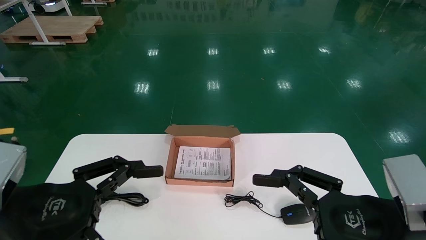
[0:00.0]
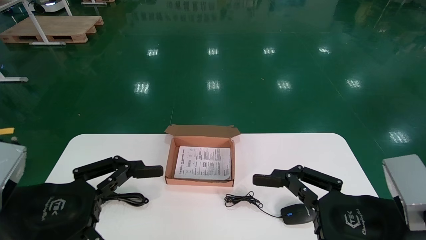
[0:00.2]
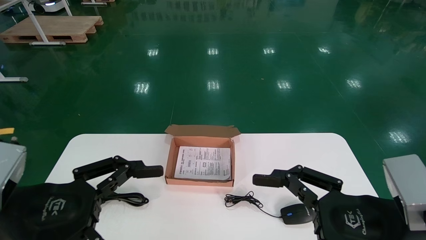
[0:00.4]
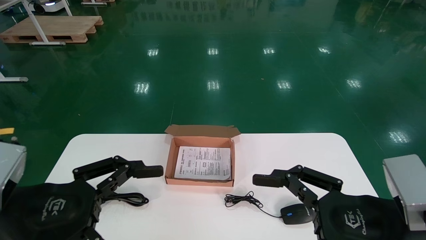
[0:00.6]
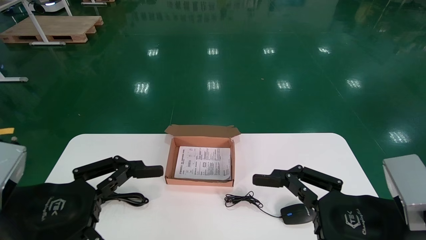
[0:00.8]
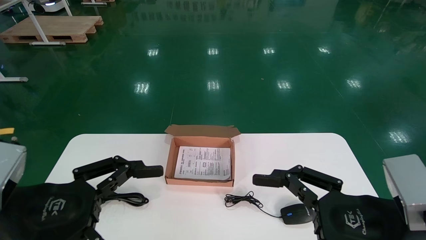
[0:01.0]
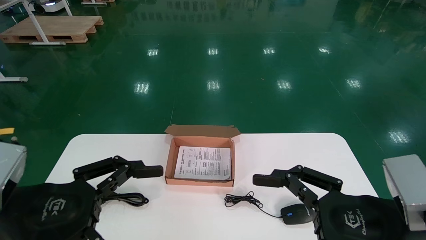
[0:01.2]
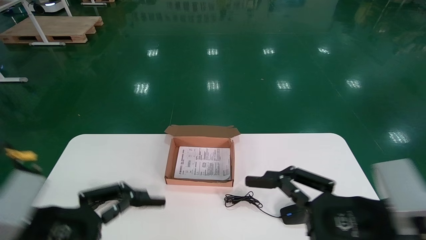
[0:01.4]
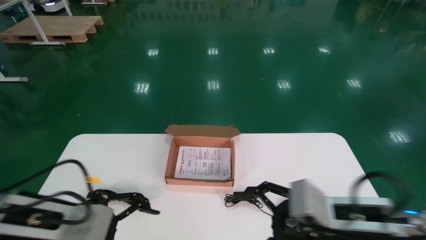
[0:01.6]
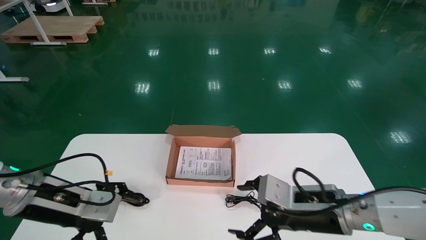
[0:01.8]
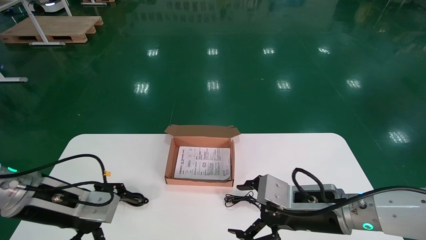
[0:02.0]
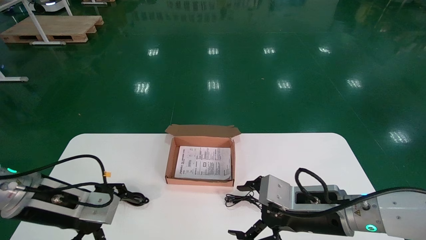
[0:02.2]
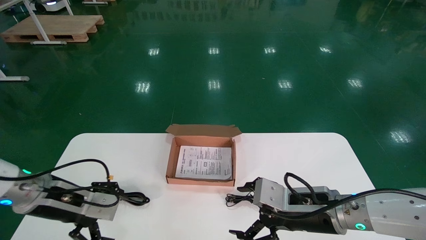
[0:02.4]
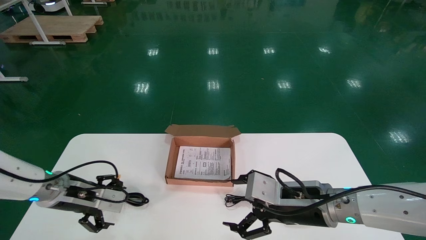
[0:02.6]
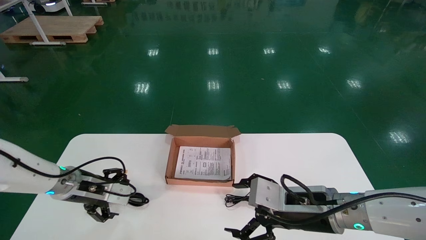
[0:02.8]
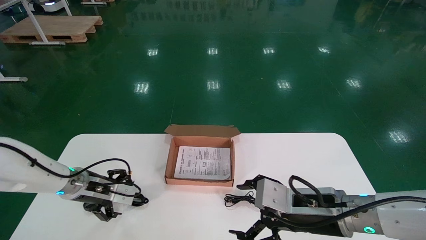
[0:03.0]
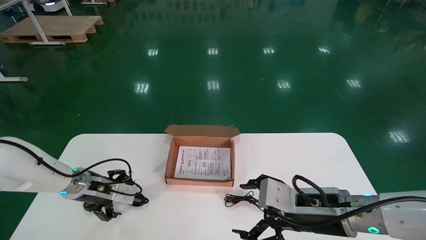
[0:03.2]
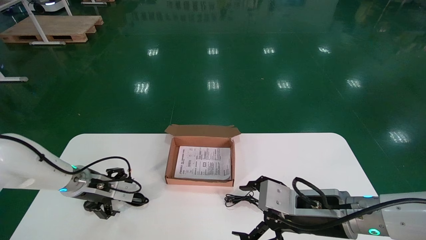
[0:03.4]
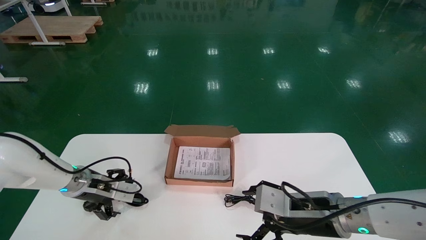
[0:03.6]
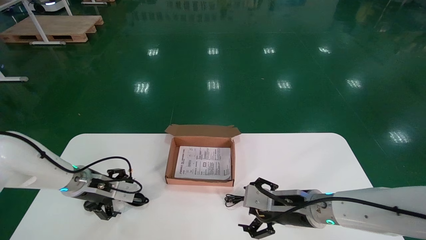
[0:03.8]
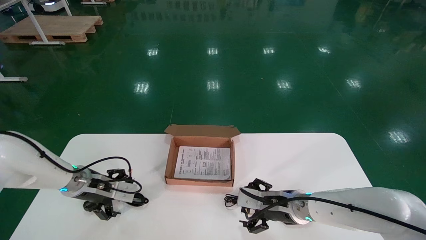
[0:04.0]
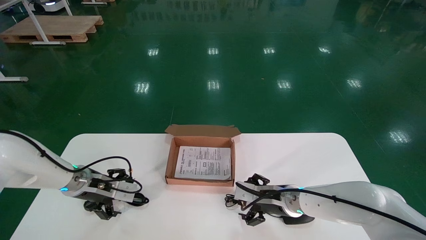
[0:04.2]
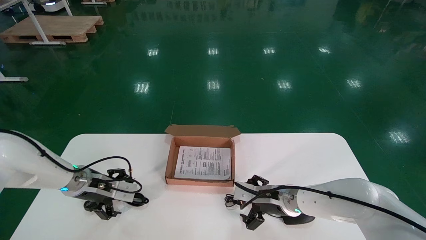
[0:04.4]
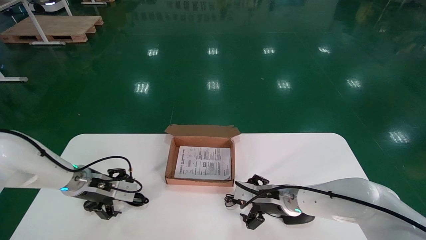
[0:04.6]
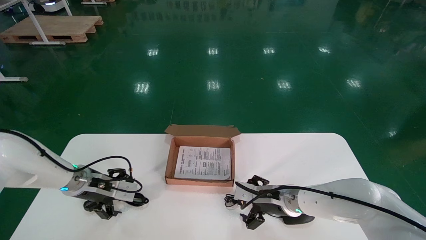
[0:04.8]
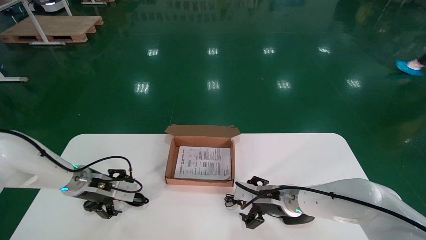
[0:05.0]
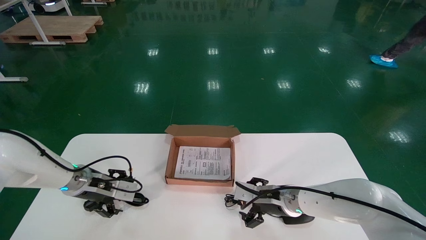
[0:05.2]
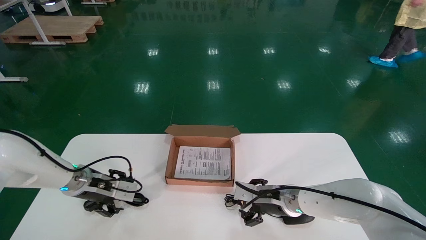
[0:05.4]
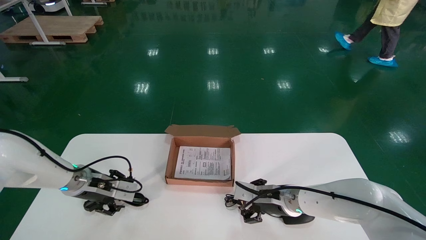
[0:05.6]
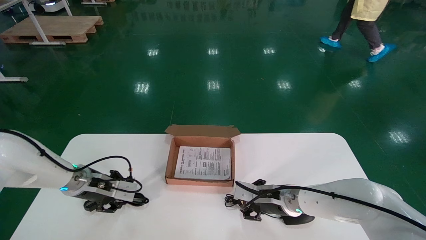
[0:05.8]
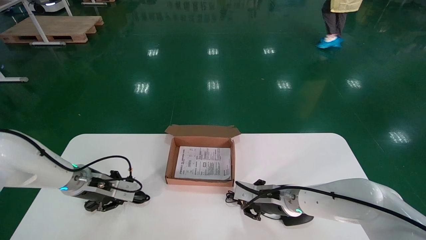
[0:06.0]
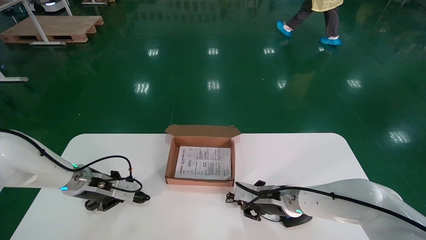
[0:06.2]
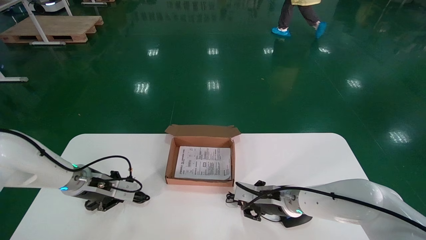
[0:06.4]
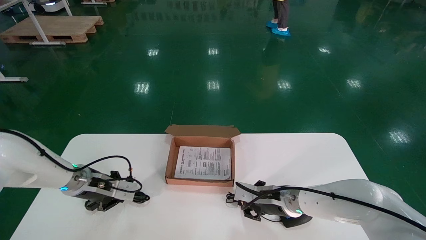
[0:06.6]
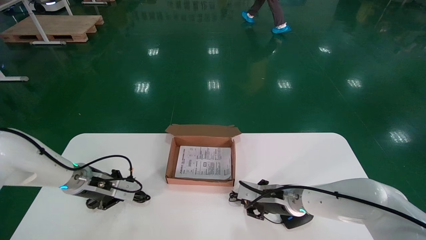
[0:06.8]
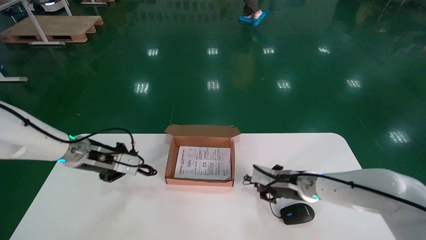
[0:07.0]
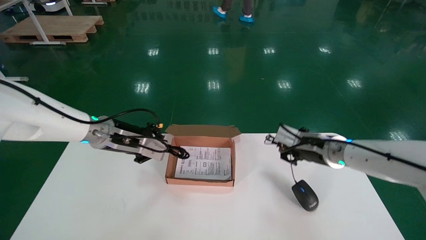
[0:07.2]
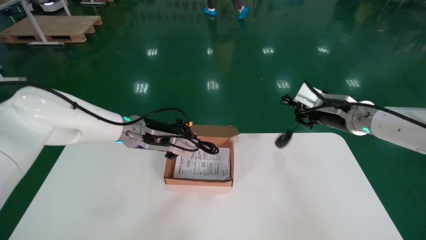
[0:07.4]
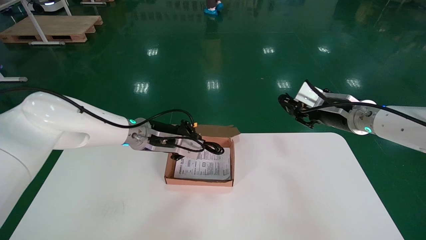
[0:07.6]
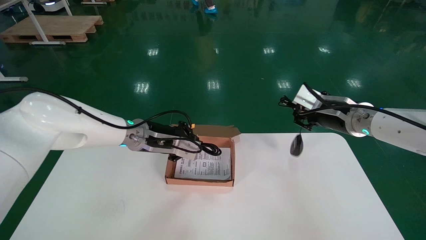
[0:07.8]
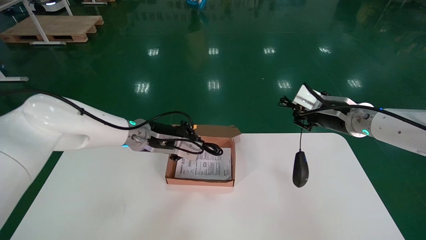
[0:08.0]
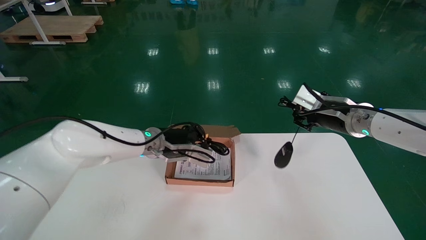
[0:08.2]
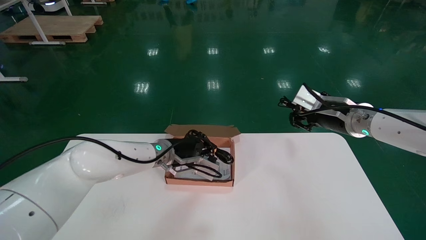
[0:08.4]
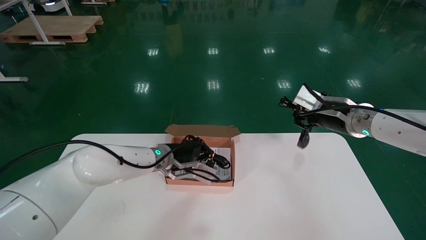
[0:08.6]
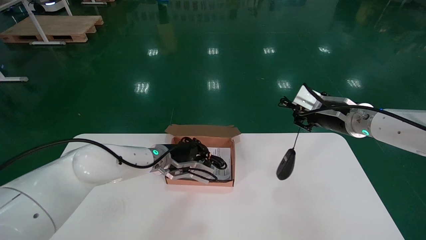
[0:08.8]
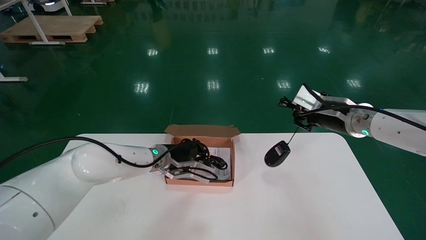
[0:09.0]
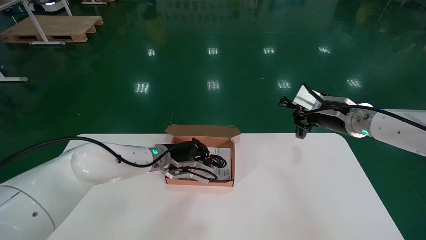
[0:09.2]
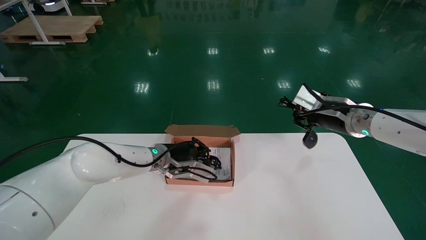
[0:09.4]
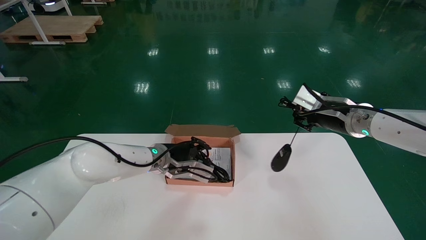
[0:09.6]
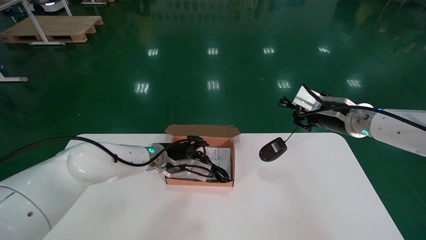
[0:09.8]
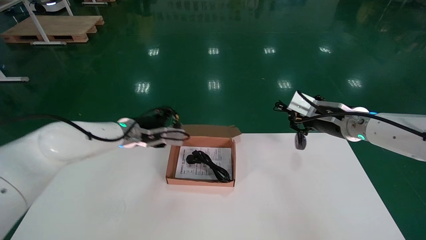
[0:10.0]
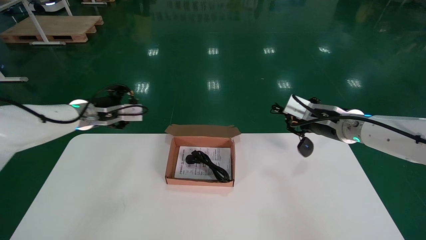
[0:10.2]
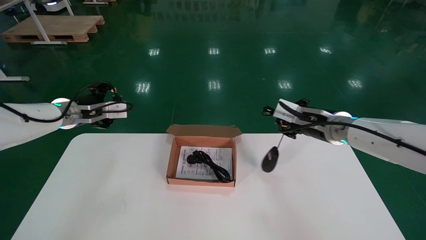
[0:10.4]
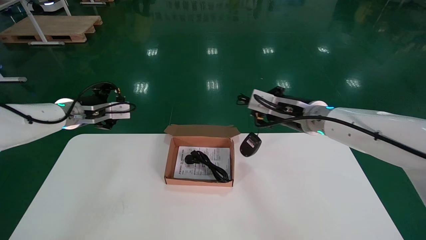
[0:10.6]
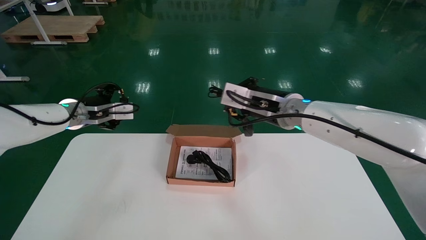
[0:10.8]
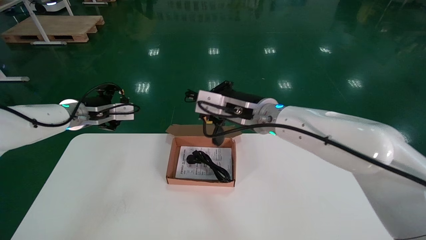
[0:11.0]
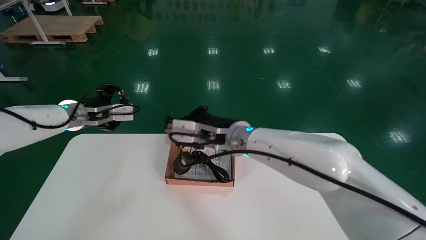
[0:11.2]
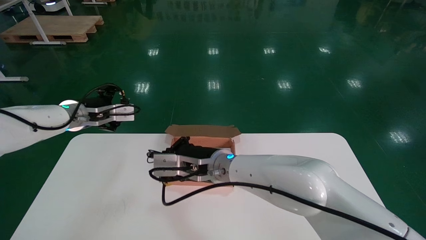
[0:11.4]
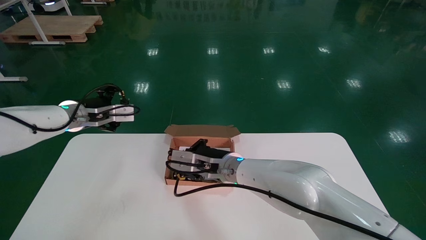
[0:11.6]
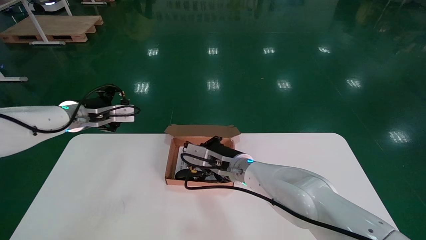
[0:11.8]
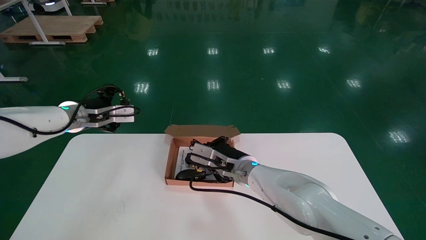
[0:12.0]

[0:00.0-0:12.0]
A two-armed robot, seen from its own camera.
Step, 0:01.8 to 0:06.0: Simultaneously pick up the mouse and power cord from the accessory packaging area.
0:00.0 to 0:01.6: Both grippers move forward, approximately 10 cm.
0:01.6 to 0:03.0: The left gripper heads forward, covering approximately 15 cm.
0:03.0 to 0:04.4: The right gripper moves forward and downward, some 15 cm.
0:04.4 to 0:06.0: The left gripper closes up, while the right gripper closes up.
0:06.0 to 0:07.6: The left gripper goes roughly 20 cm to the right and upward. Meanwhile the right gripper travels upward and to the right by roughly 25 cm.
0:07.6 to 0:09.0: The left gripper shifts roughly 5 cm downward.
0:09.0 to 0:10.4: The right gripper heads to the left, covering some 5 cm. The left gripper is displaced to the left and upward by approximately 20 cm, and opens its fingers.
0:10.4 to 0:12.0: The right gripper shifts some 20 cm to the left and downward.

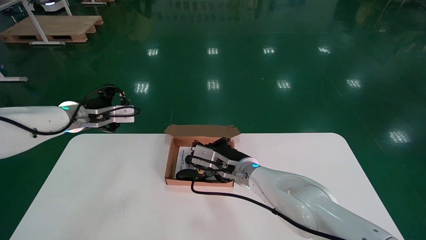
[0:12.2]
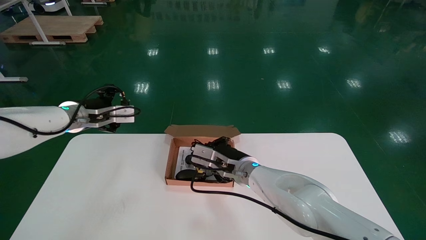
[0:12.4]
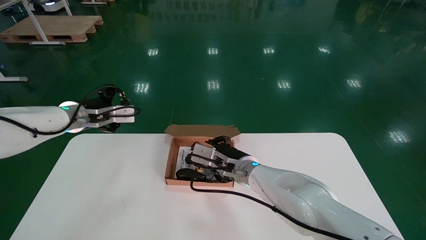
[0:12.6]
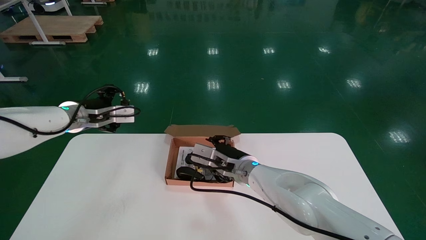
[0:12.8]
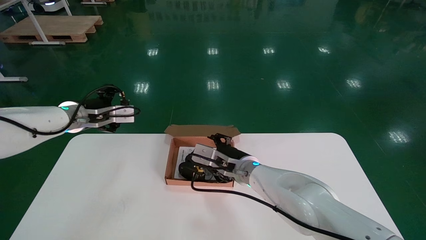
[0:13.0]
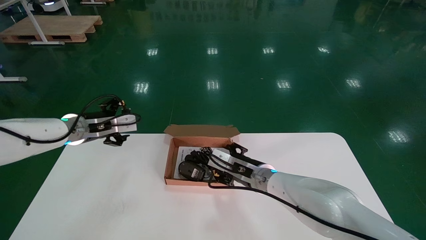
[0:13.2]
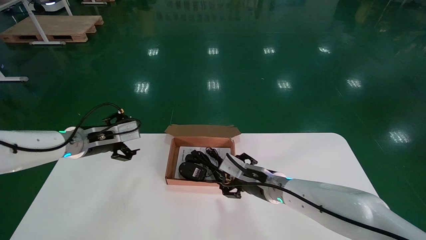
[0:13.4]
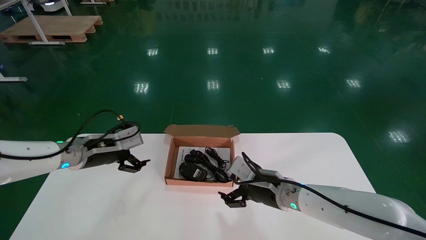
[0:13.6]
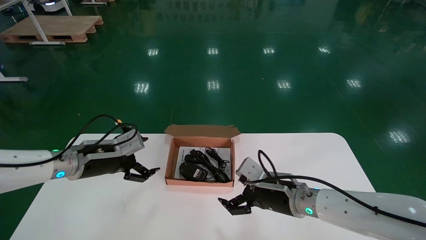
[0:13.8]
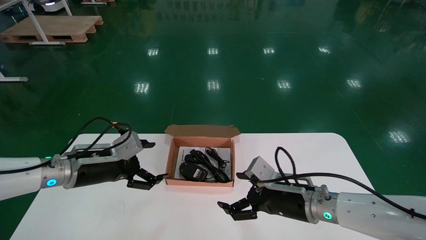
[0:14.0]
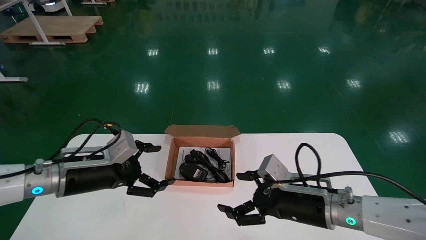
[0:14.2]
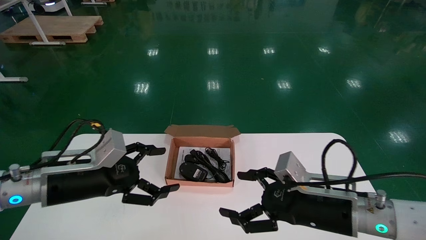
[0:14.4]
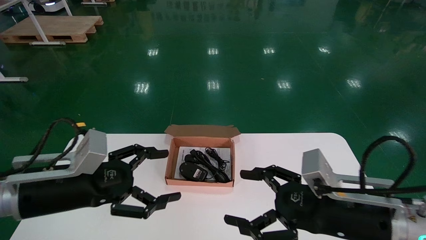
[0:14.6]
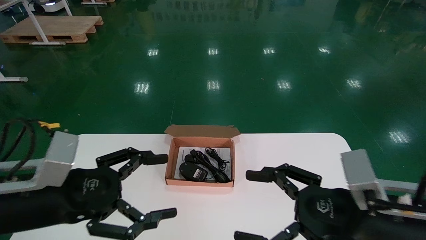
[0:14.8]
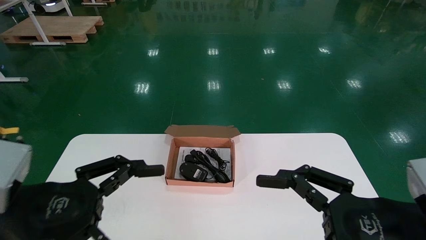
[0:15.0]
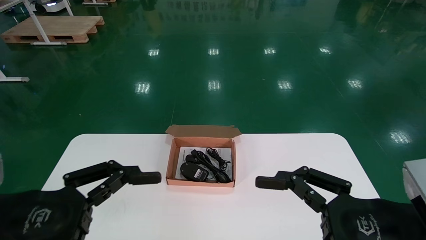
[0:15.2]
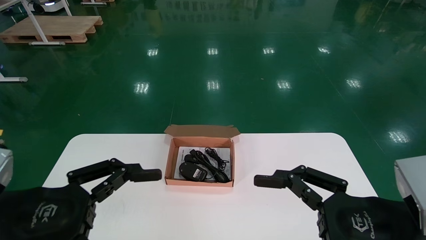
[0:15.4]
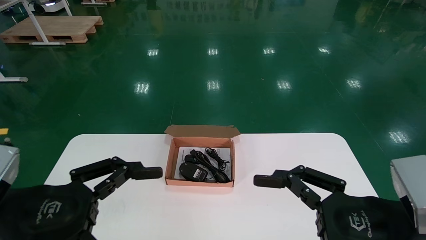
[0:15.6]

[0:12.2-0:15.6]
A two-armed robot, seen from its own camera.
0:12.2 to 0:13.8: The left gripper moves downward and backward, approximately 10 cm. The right gripper is displaced to the right and backward by roughly 15 cm, and opens its fingers.
0:13.8 to 0:15.6: The right gripper is displaced backward, upward and to the right by some 25 cm; the left gripper travels backward by roughly 25 cm.
